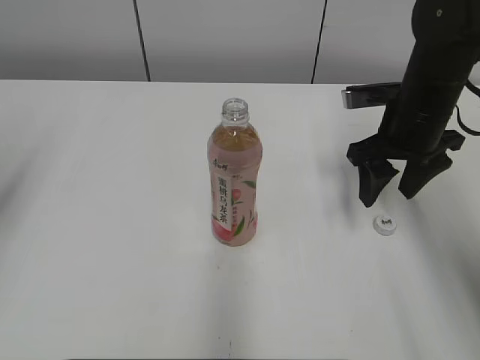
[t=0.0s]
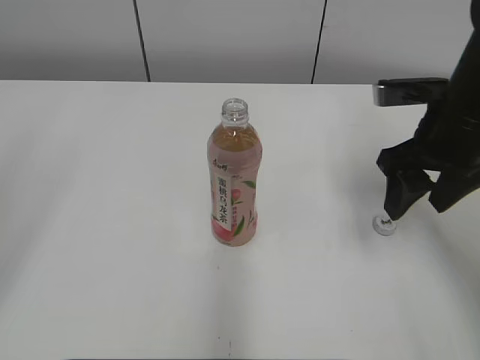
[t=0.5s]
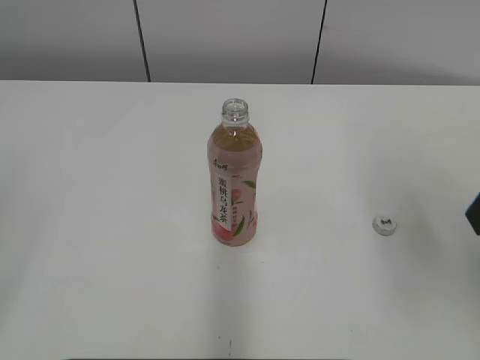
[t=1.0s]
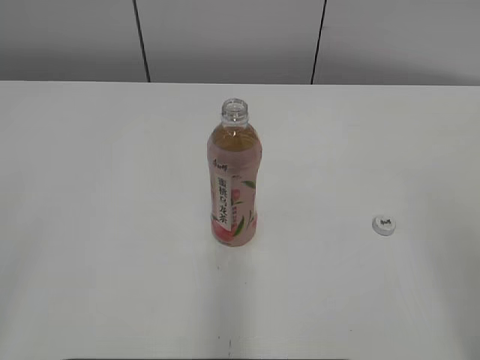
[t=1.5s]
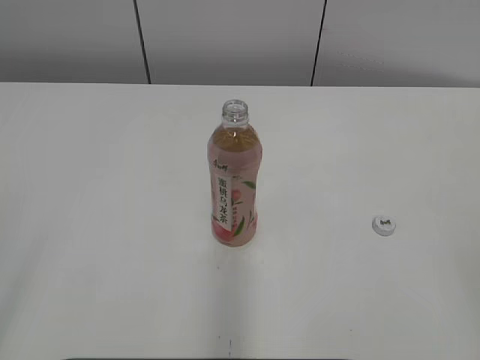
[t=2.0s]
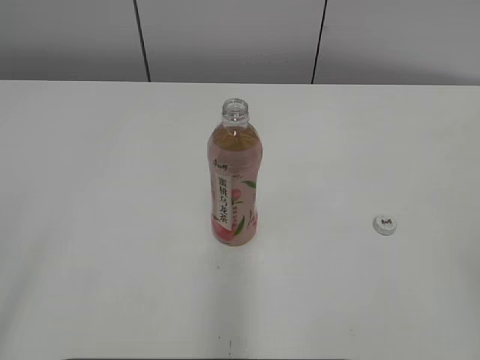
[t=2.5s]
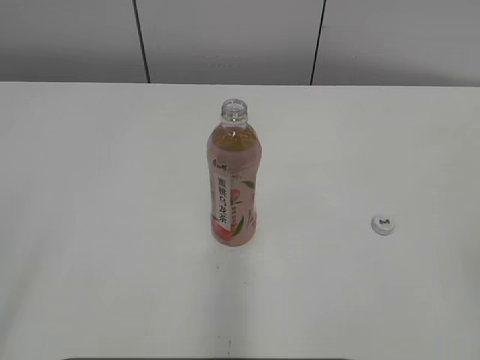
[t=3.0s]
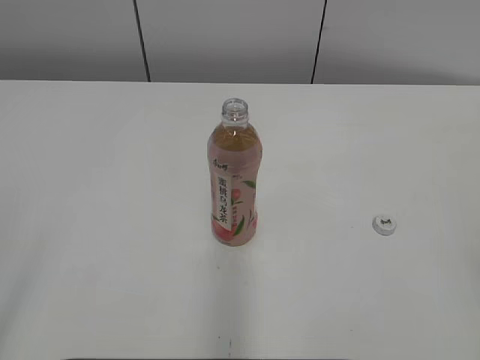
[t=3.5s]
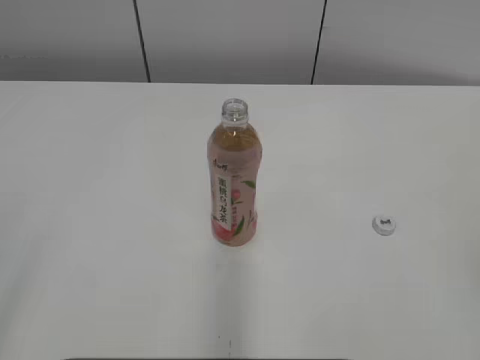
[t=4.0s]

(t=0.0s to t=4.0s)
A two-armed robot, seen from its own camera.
t=0.0s - t=2.0s: The right gripper travels backward by some 35 cm; the left gripper heads backward, covering roughly 25 cm.
